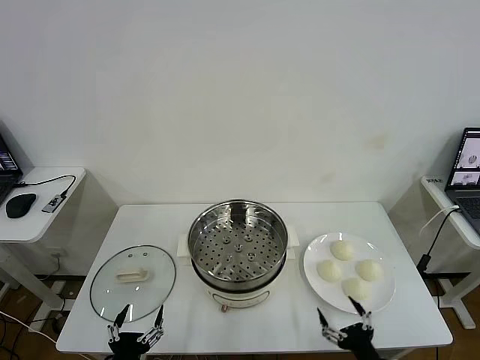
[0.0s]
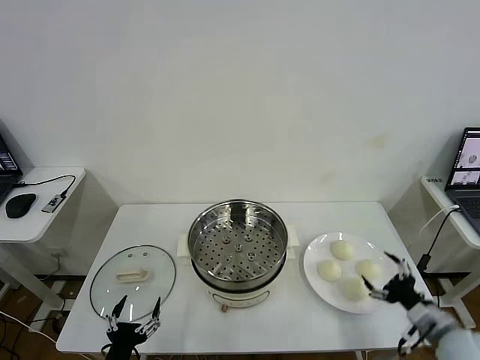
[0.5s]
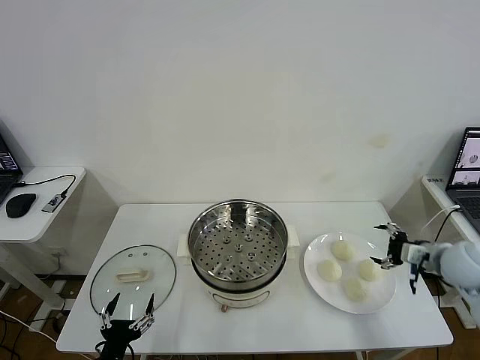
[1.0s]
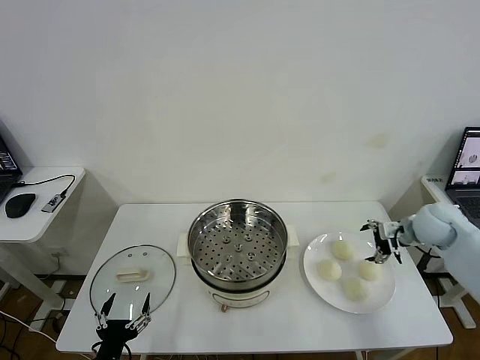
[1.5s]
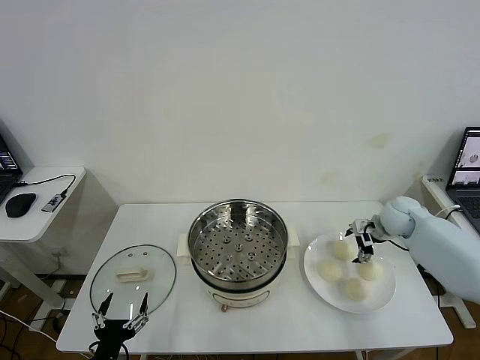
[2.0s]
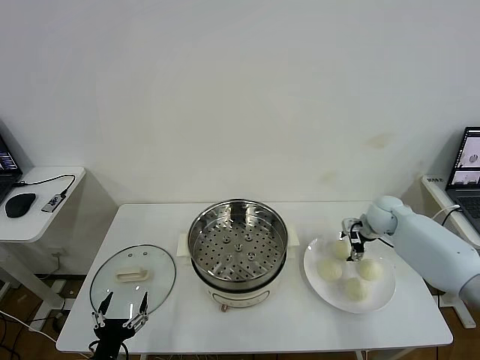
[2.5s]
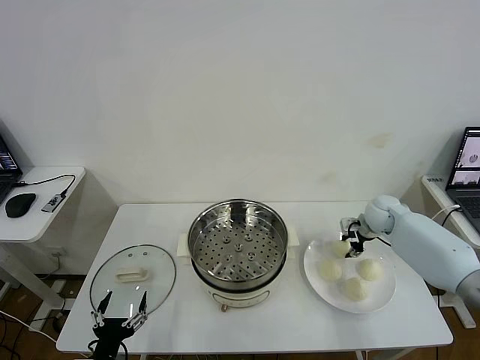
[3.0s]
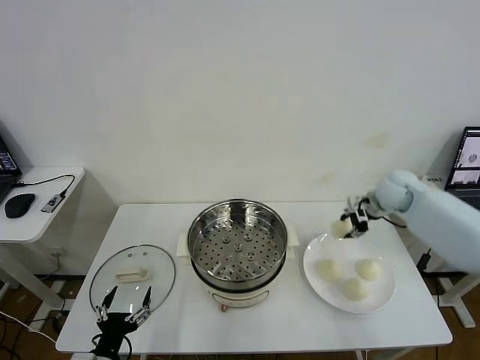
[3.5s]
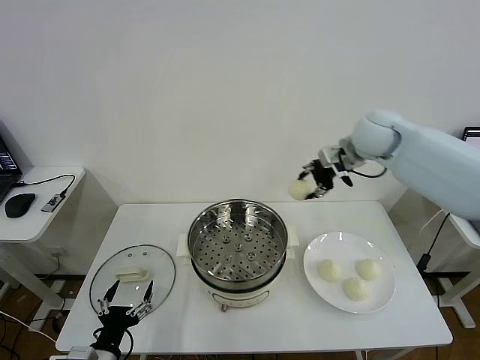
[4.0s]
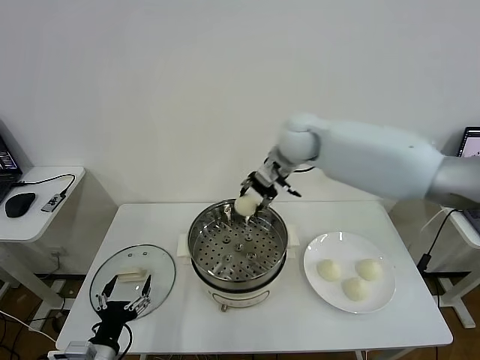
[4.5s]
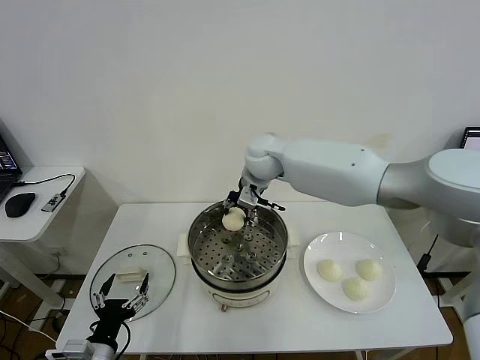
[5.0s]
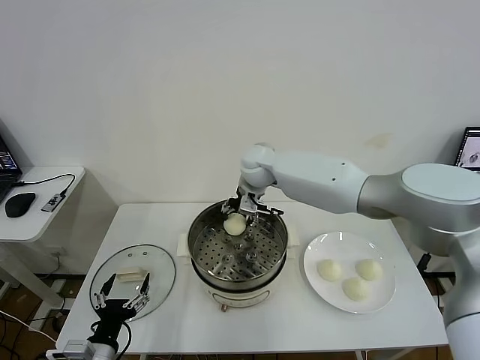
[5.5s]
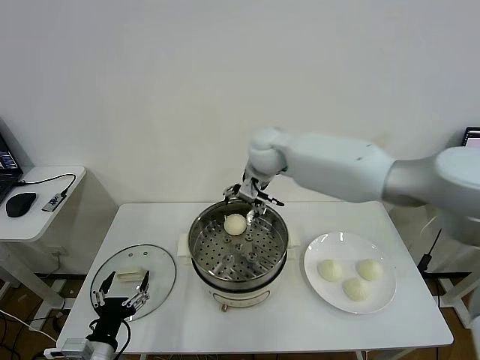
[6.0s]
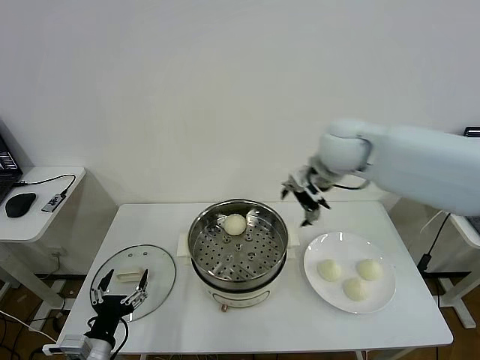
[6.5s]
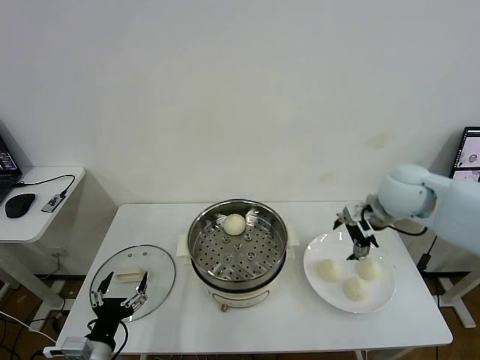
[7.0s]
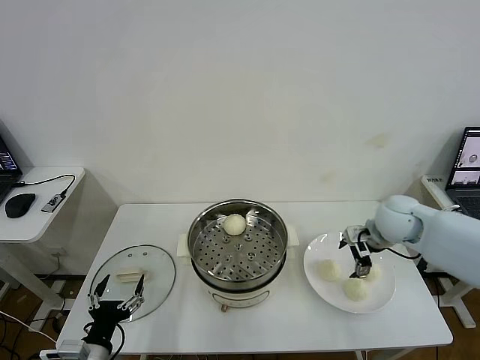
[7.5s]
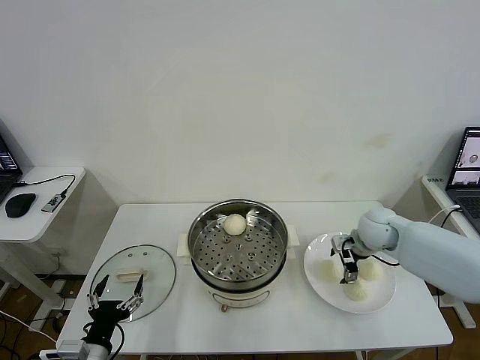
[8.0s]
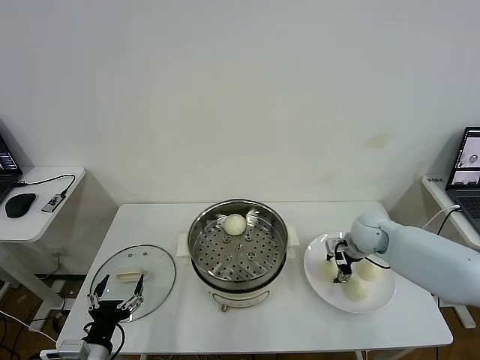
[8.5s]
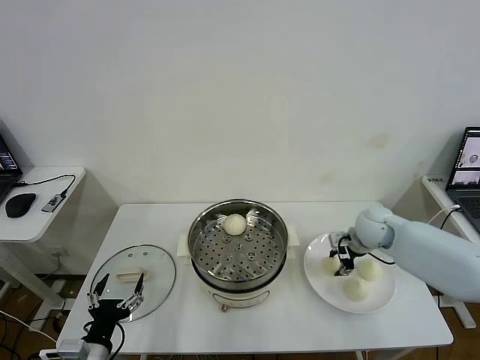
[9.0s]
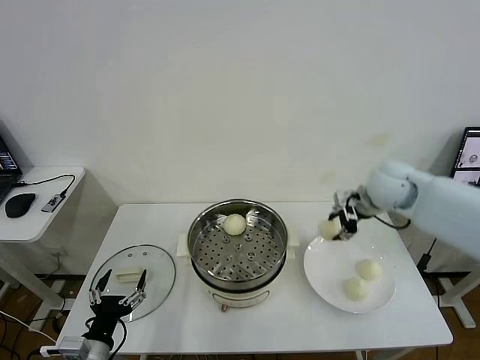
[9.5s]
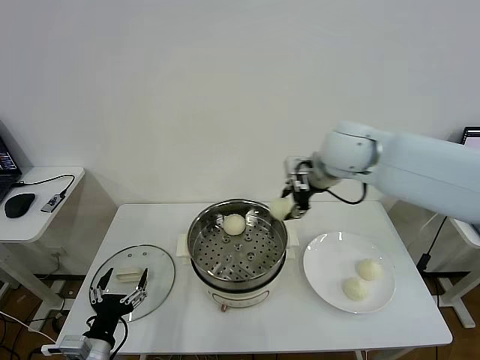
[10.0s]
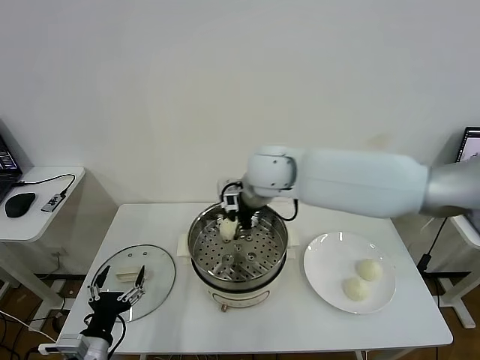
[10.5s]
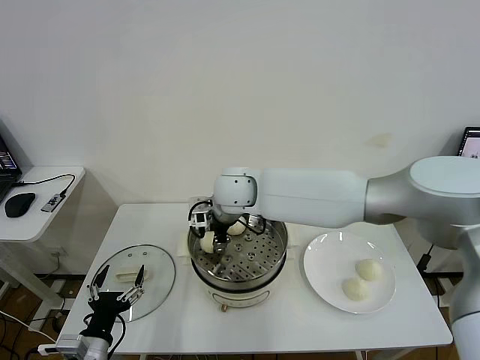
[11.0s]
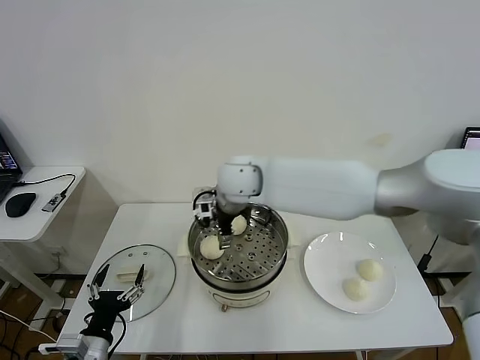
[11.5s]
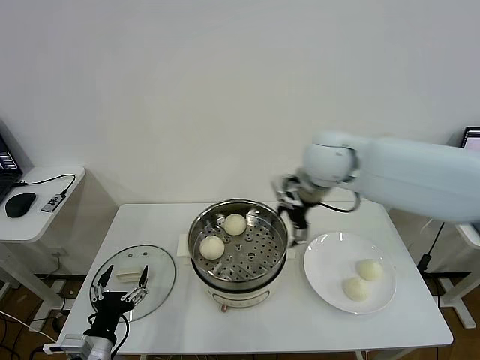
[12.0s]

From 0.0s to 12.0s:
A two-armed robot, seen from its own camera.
Task of the whole recording: take steamed baozi put them in steamer then cover it.
Step, from 0.0s to 3.0s: Grasp the baozi in the plate with right gripper.
Step, from 3.5s to 5.5s: Place the baozi on the steamer with right gripper.
Step, from 6.0s to 8.5s: Grasp the baozi in the plate with right gripper.
Step, from 9.5s to 11.0s: Place the baozi on the steamer with right gripper.
From 2.0s to 4.0s: The right gripper goes approximately 30 cm upward and to the left, and closes its fingers.
From 4.0s to 6.0s: The right gripper travels to the left by roughly 15 cm, and opens up.
From 6.0s to 8.0s: The right gripper moves to the right and downward, roughly 30 cm.
From 8.0s to 10.0s: The right gripper is displaced upward and to the left by about 30 cm, and closes.
From 10.0s to 12.0s: The right gripper goes to the left and returns, about 20 cm each way, and opens its fingers.

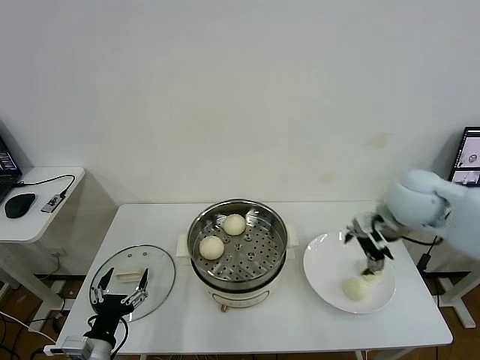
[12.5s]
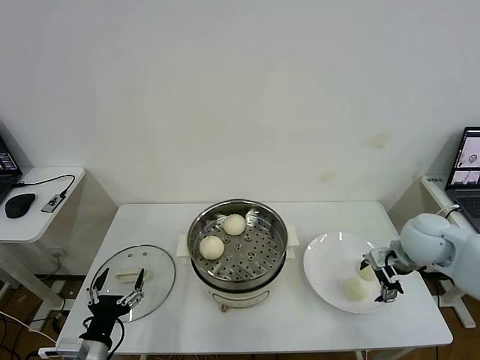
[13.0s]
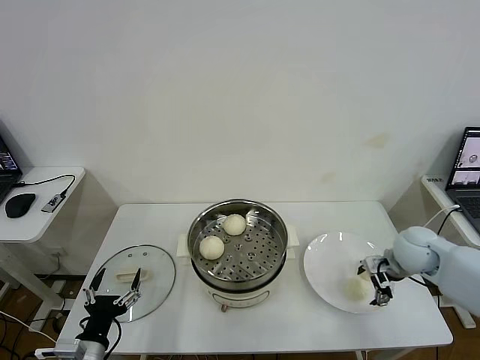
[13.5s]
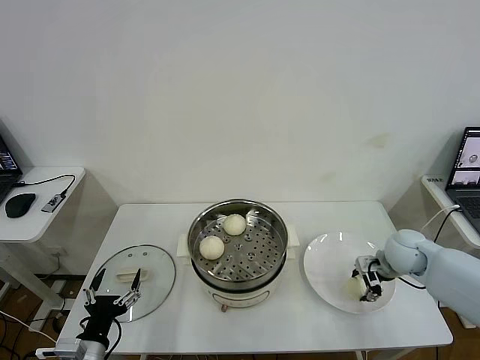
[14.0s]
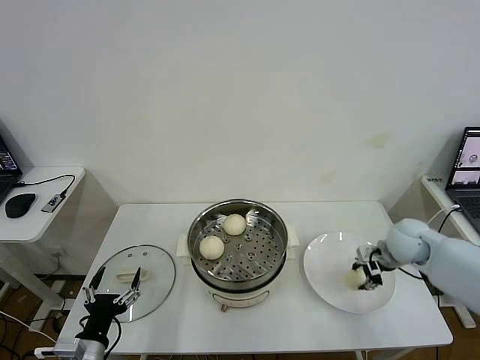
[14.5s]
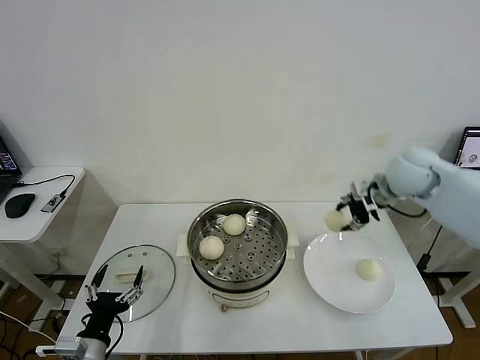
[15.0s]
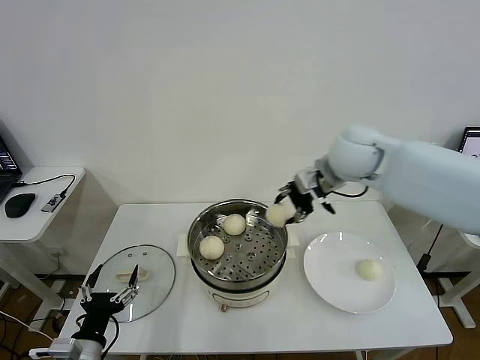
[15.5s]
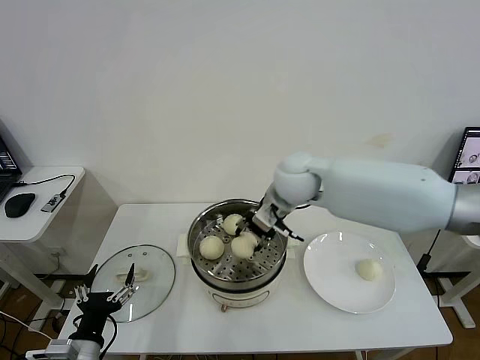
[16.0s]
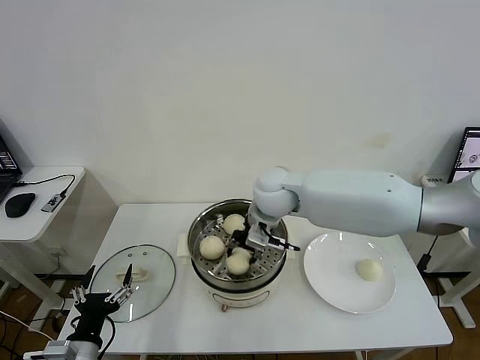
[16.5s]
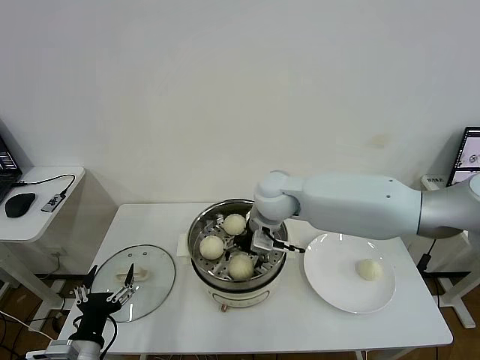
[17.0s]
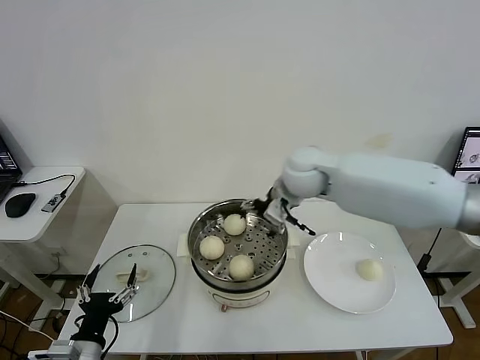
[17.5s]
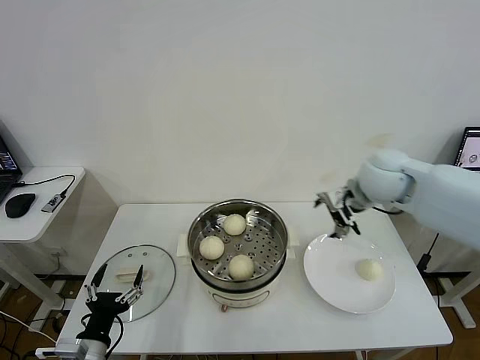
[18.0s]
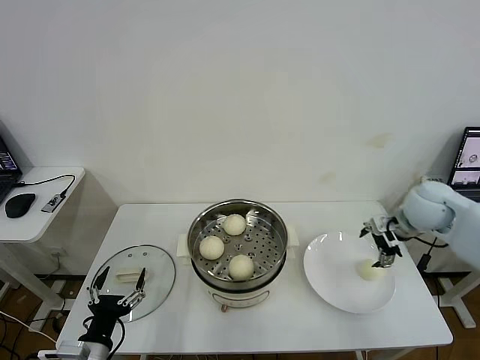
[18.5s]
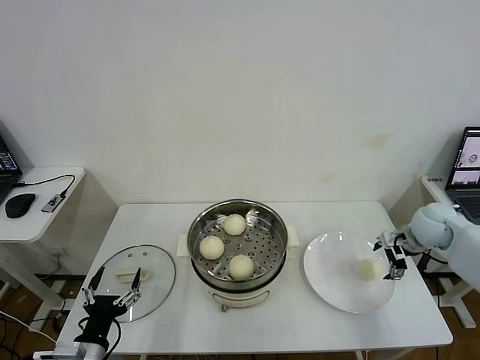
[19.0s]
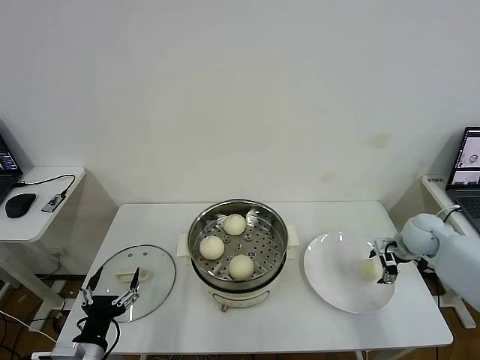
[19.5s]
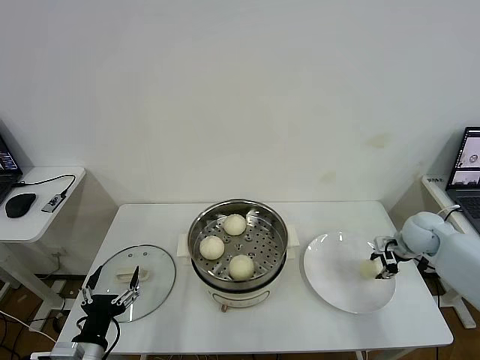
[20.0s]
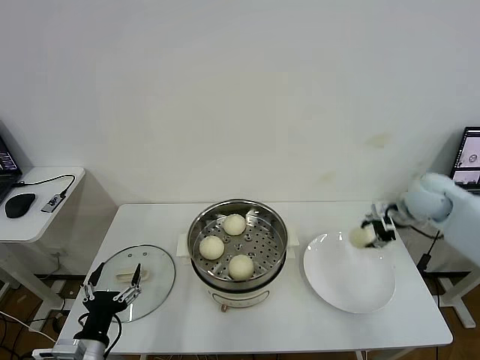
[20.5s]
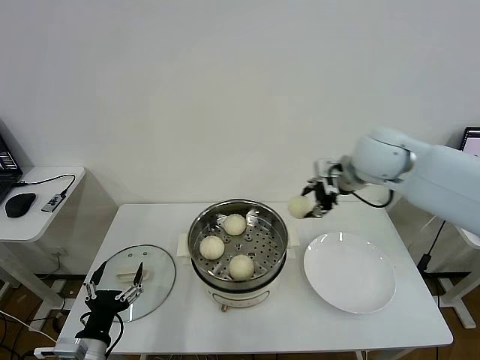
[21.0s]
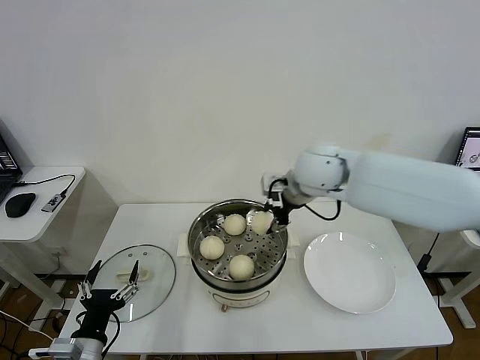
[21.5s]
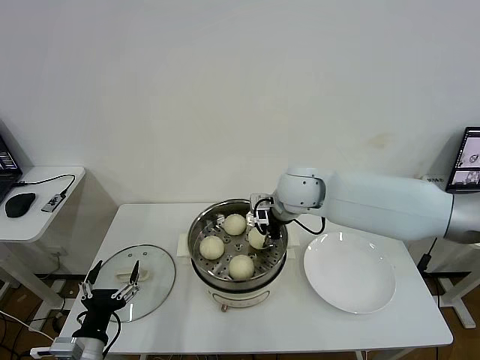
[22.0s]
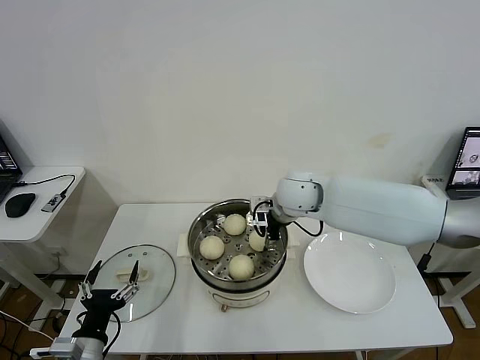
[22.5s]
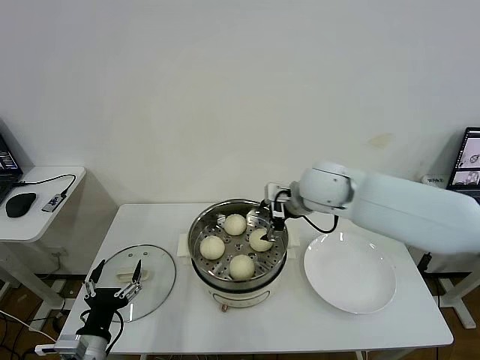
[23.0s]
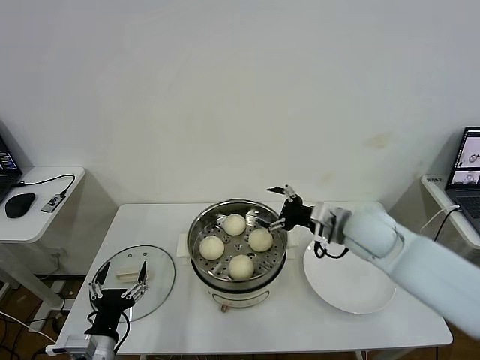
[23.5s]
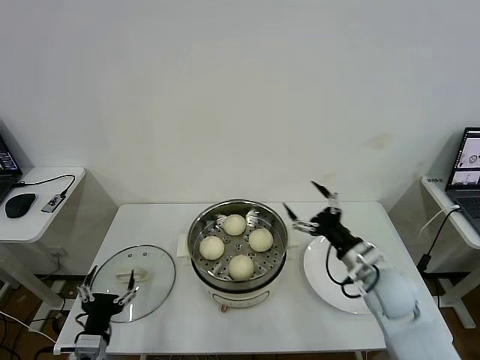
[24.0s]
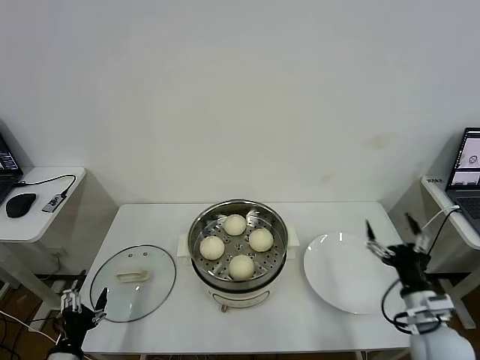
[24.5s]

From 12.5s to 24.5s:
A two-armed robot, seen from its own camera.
Task of the whole recording: take steamed baozi put them in steamer then cover it.
Step, from 12.5s to 14.0s: Grasp the baozi in the plate with right gripper.
Step, from 14.5s to 17.0s: Place the baozi on the steamer with right gripper.
Step, from 17.5s to 20.0s: Grasp the baozi in the plate with right gripper.
Step, from 20.5s to 22.5s: Place the baozi on the steamer with right gripper.
From 12.5s to 14.5s: The right gripper goes roughly 10 cm downward, and closes.
From 14.5s to 16.5s: The right gripper travels to the left by roughly 30 cm.
From 16.5s to 18.5s: The right gripper shifts roughly 35 cm to the right, and opens up.
From 18.5s to 20.5s: The right gripper travels downward and back again, approximately 10 cm each way, and closes up.
From 20.5s to 22.5s: The right gripper travels to the left by some 30 cm, and opens up.
From 22.5s to 24.5s: The right gripper shifts roughly 40 cm backward, to the right and downward, while the left gripper heads to the left, covering roughly 5 cm.

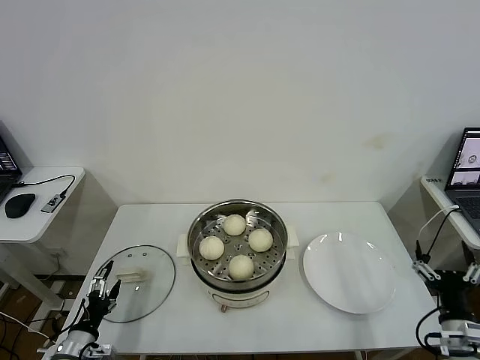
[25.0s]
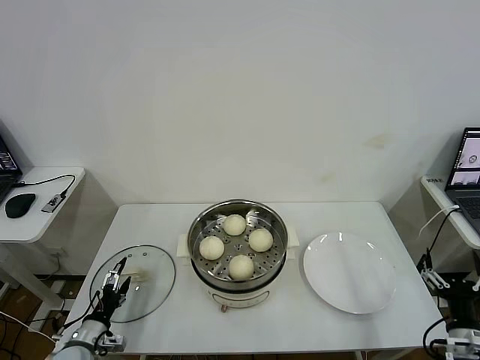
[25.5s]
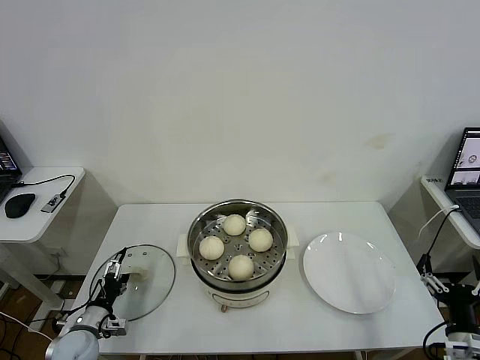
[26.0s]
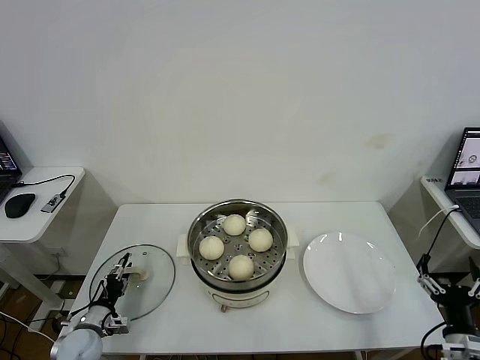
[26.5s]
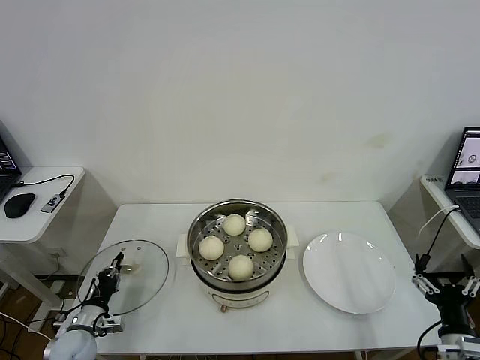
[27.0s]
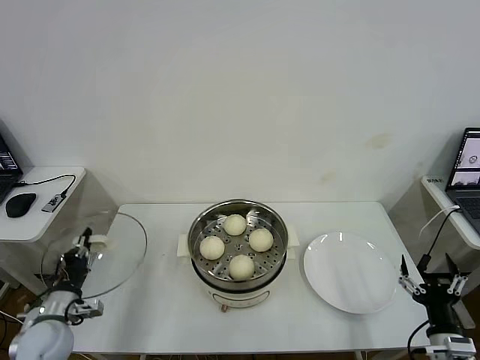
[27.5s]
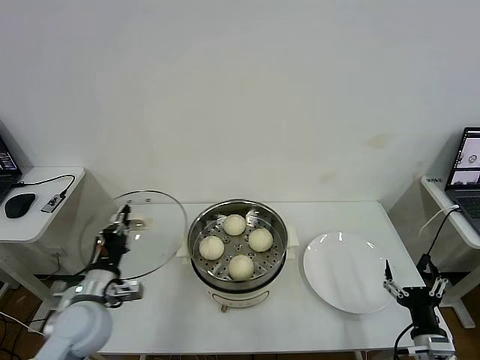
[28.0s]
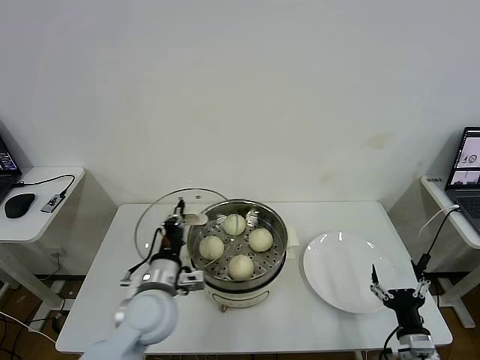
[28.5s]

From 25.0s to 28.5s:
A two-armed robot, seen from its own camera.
Task of the whole recording: take steamed baozi put them in steamer then cover it.
Step, from 25.0s to 27.0s: Grasp the pot lid with left gripper.
From 25.0s to 27.0s: The left gripper travels forward by roughly 10 cm, and closes its fingers.
From 27.0s to 28.5s: The left gripper is displaced to the right and upward by some 30 cm, while the right gripper moves some 5 cm.
